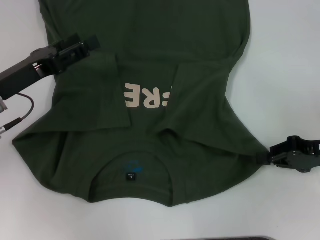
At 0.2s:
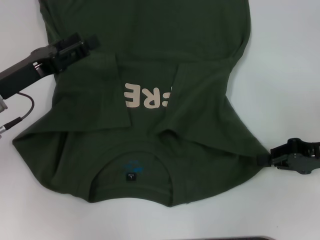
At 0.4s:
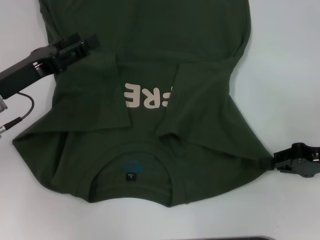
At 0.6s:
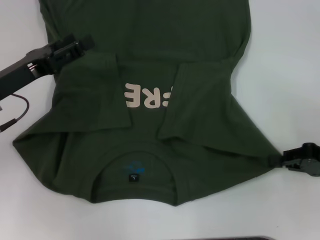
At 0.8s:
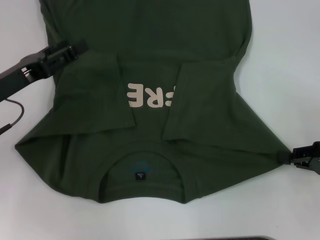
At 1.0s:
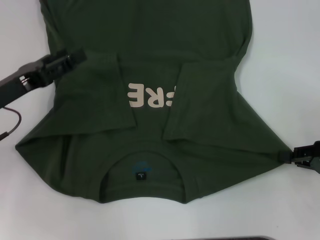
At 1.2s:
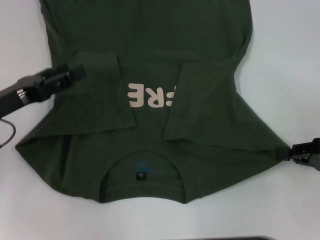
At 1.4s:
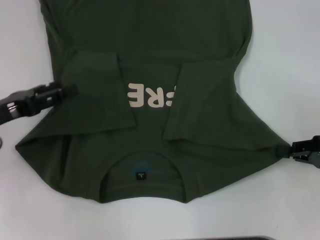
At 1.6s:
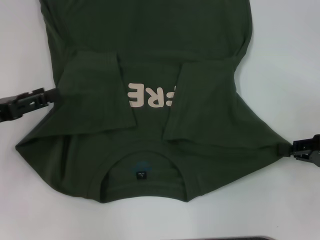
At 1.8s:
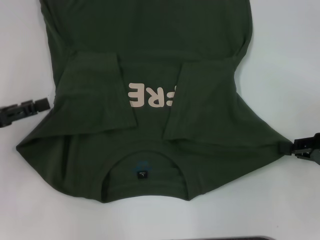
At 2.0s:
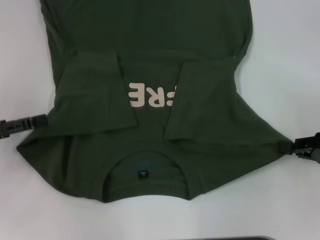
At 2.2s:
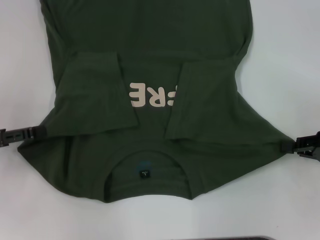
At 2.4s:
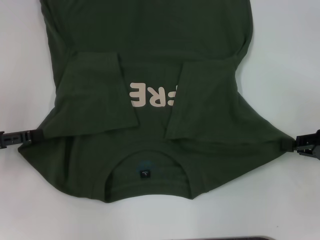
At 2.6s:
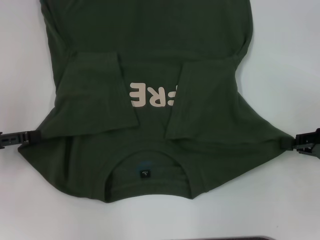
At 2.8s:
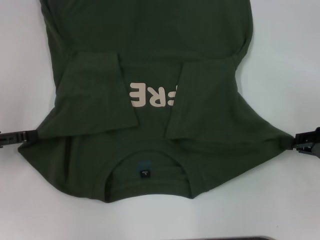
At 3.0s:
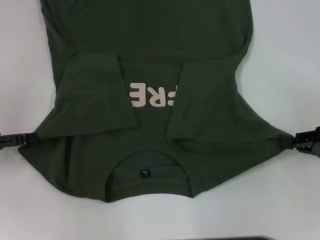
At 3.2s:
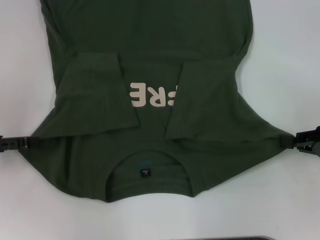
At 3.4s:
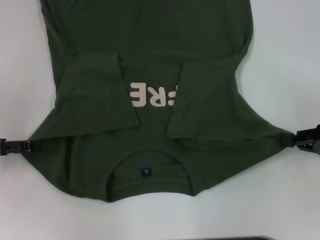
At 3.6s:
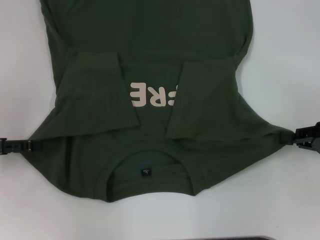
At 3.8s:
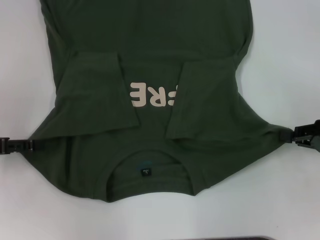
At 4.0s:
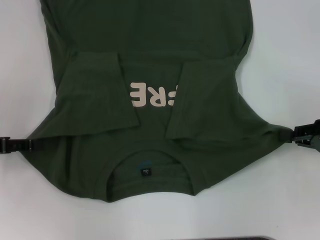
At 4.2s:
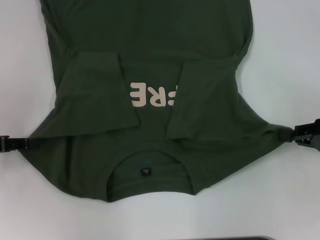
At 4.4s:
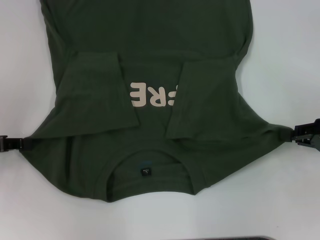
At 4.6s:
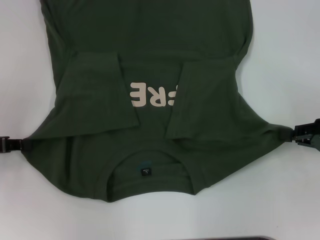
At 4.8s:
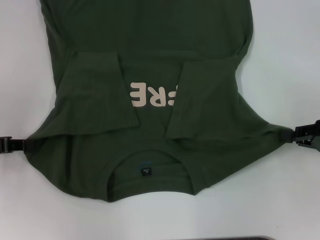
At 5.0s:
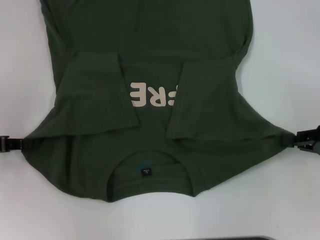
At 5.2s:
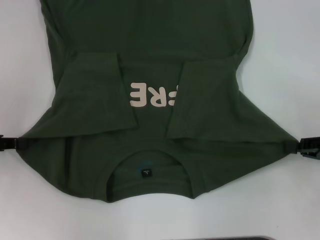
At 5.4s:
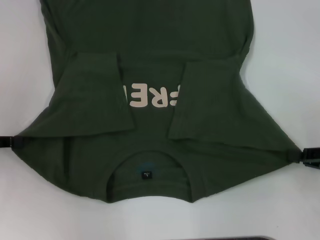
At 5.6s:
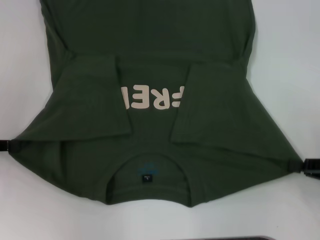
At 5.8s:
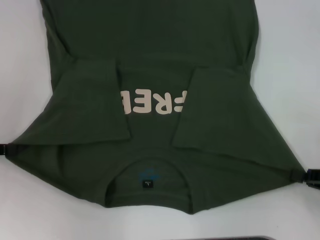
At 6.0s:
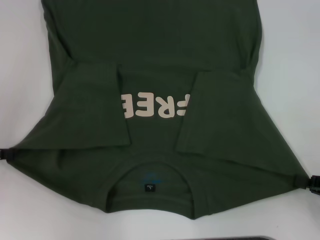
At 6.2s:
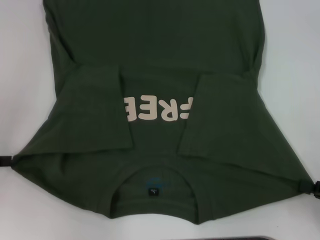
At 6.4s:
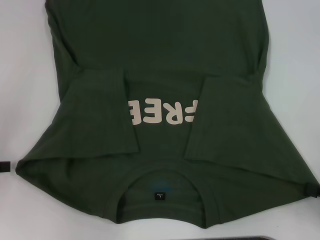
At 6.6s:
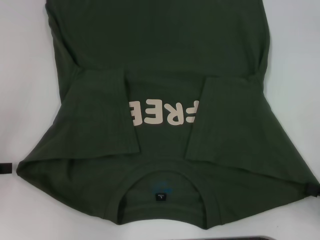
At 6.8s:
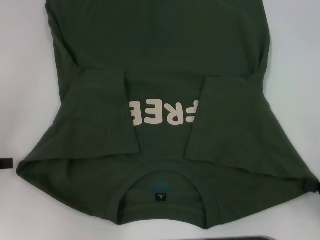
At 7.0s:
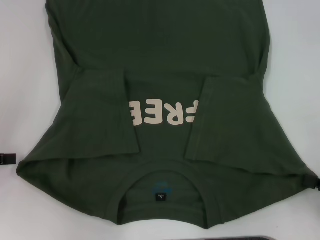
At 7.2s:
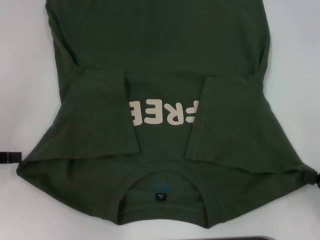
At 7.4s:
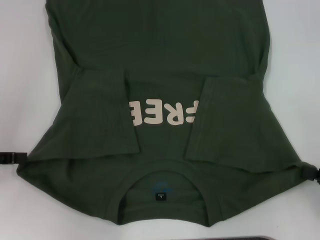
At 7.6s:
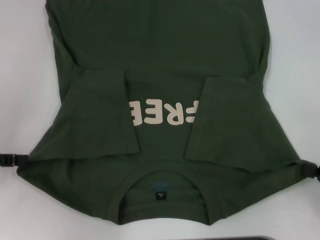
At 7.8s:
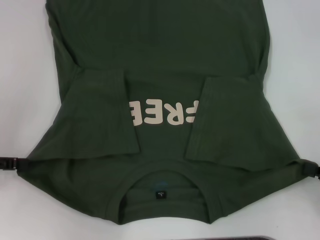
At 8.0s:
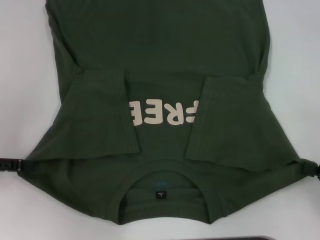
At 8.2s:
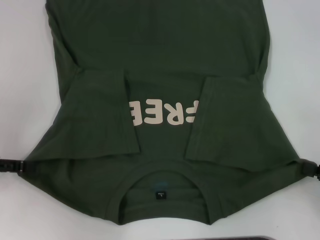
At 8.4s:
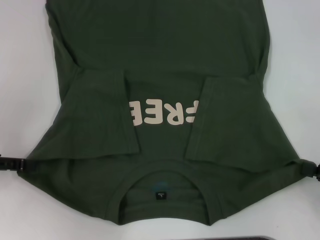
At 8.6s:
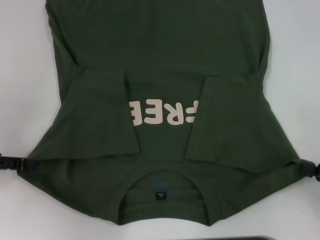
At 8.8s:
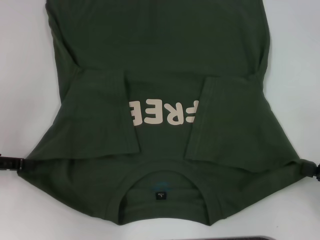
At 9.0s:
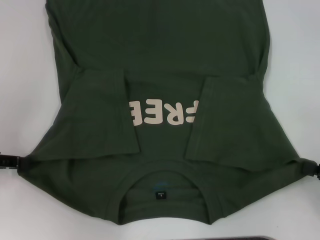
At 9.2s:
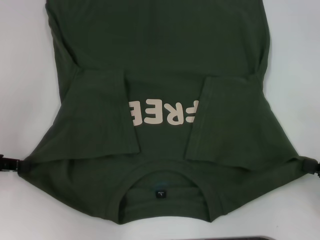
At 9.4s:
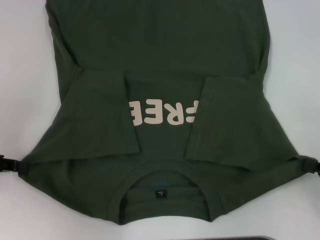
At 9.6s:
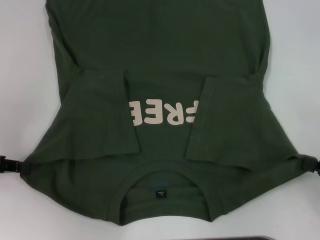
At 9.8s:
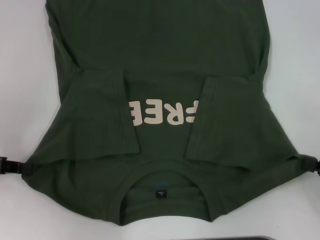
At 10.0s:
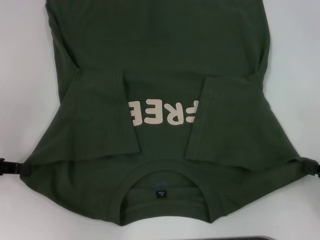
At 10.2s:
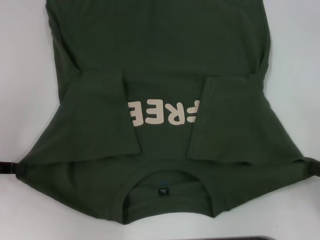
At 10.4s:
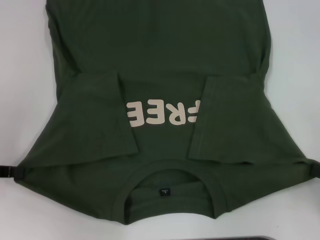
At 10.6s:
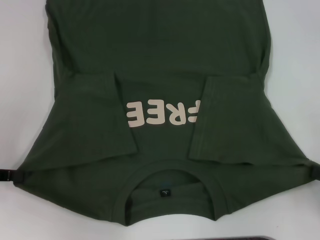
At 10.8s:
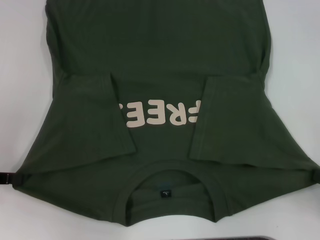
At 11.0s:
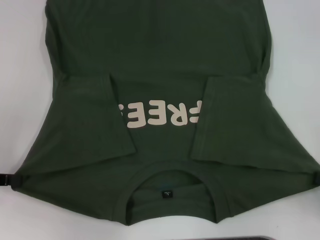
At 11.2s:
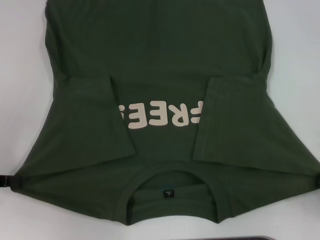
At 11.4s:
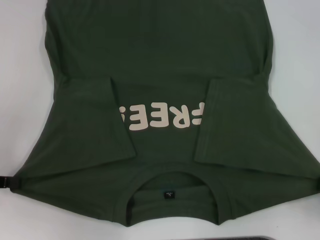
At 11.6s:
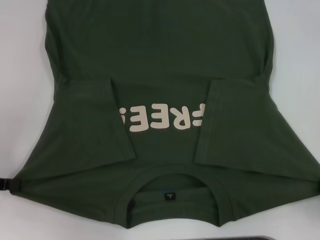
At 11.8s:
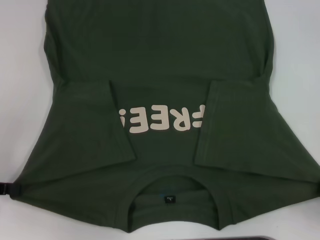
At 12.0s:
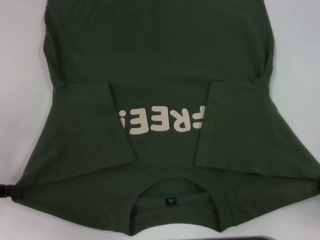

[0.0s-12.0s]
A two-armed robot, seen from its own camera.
Step, 0.4s to 9.8s: Grab the bottom left corner with your left hand.
0.0s to 1.6s: The left gripper shifts about 5 cm to the left.
3.0s to 4.4s: The left gripper closes.
4.4s to 6.0s: The right gripper shifts some 10 cm backward.
6.0s to 7.6s: The left gripper opens.
7.6s to 9.0s: Neither gripper changes place.
9.0s to 10.4s: The left gripper closes up.
10.4s to 12.0s: There are only small adjustments of the grippers.

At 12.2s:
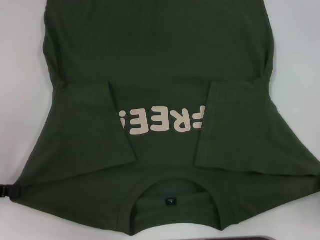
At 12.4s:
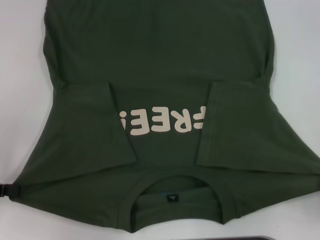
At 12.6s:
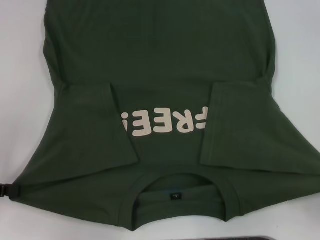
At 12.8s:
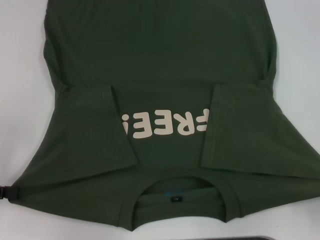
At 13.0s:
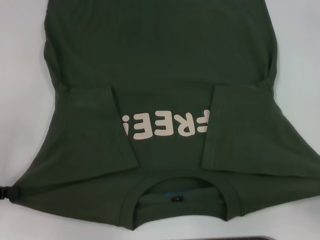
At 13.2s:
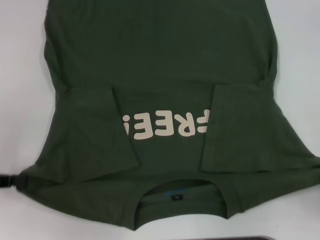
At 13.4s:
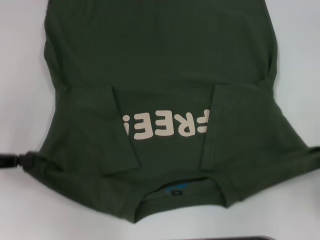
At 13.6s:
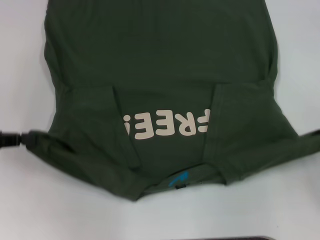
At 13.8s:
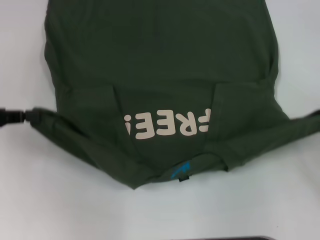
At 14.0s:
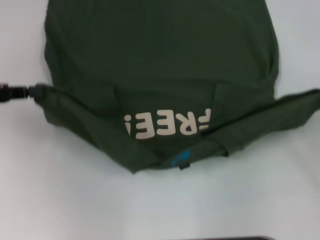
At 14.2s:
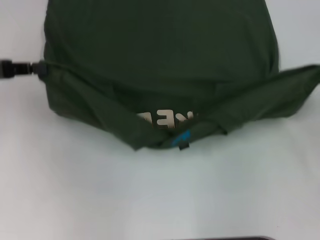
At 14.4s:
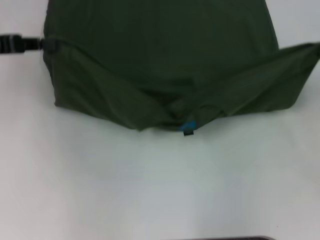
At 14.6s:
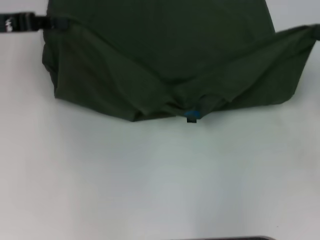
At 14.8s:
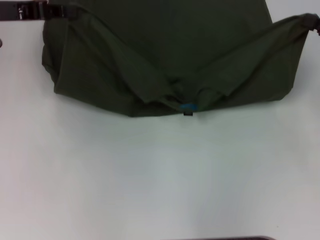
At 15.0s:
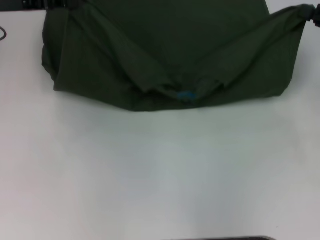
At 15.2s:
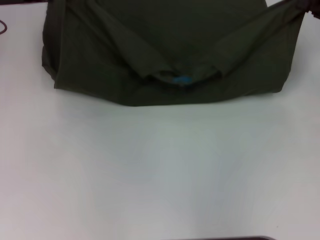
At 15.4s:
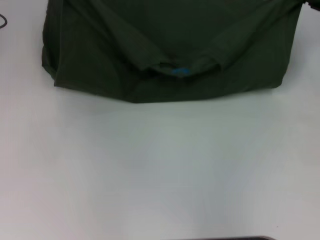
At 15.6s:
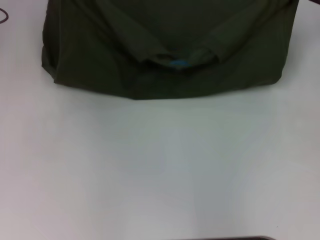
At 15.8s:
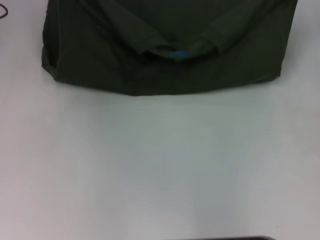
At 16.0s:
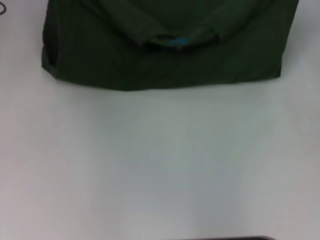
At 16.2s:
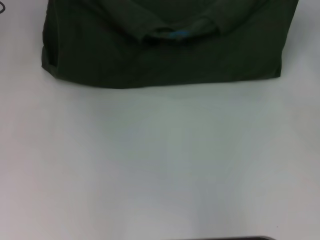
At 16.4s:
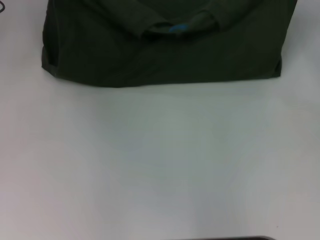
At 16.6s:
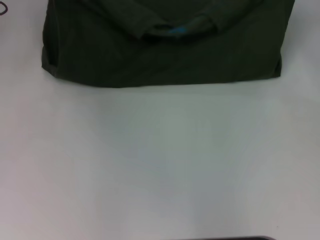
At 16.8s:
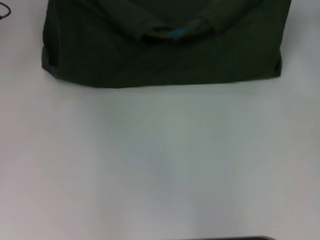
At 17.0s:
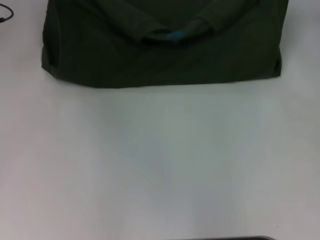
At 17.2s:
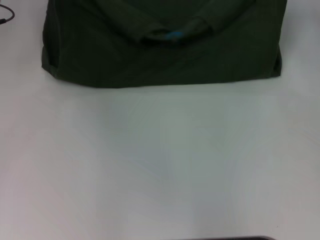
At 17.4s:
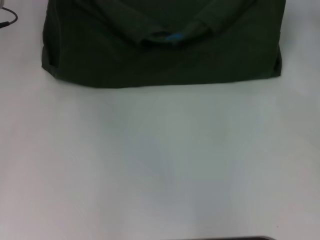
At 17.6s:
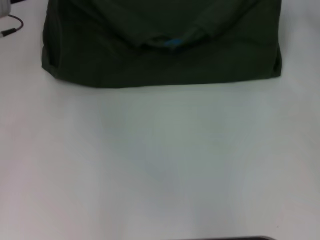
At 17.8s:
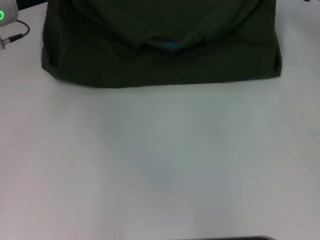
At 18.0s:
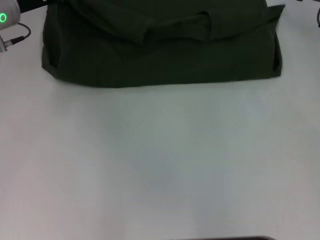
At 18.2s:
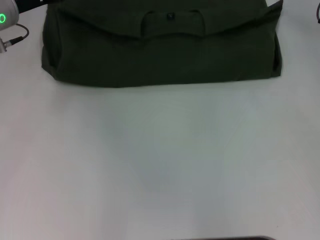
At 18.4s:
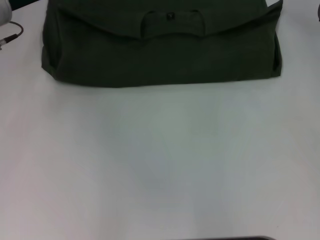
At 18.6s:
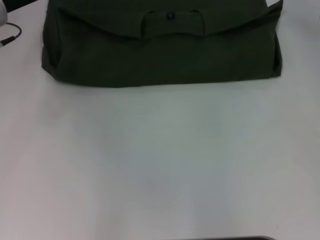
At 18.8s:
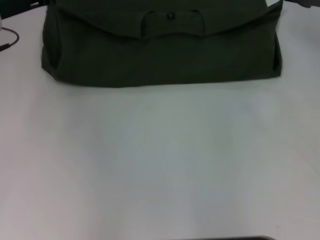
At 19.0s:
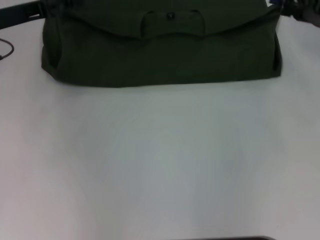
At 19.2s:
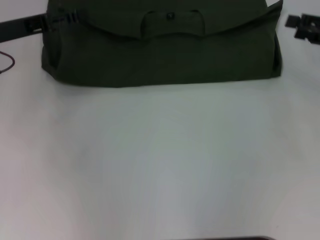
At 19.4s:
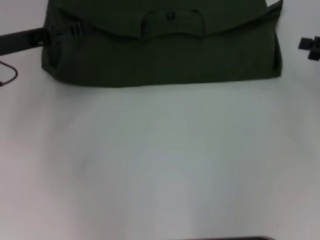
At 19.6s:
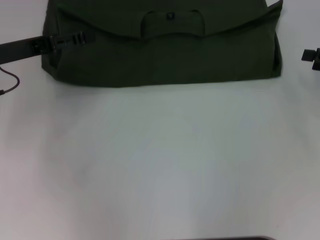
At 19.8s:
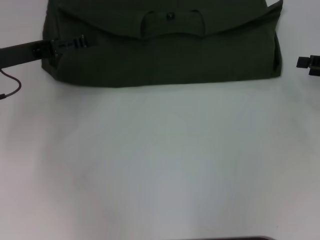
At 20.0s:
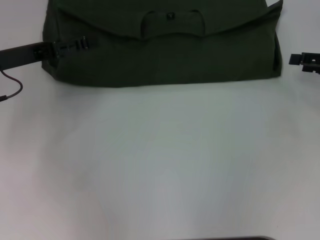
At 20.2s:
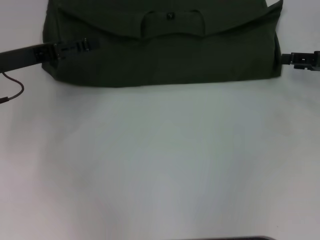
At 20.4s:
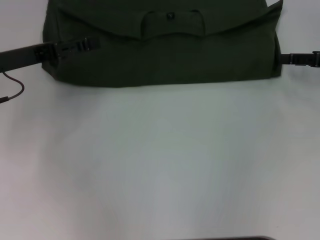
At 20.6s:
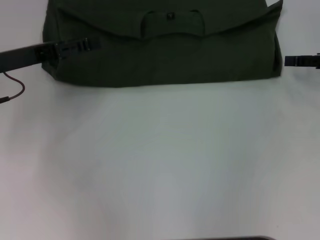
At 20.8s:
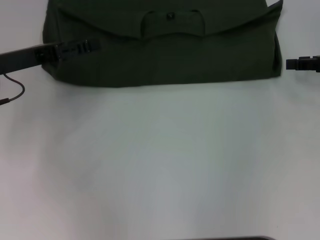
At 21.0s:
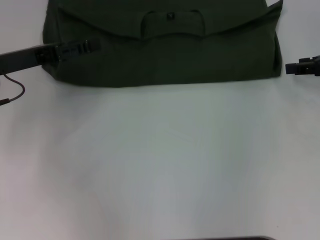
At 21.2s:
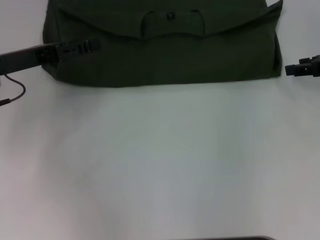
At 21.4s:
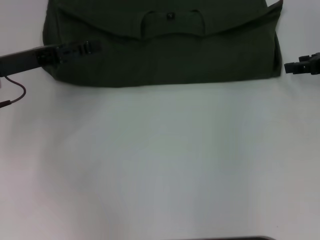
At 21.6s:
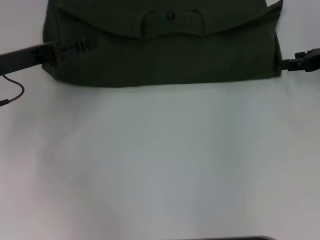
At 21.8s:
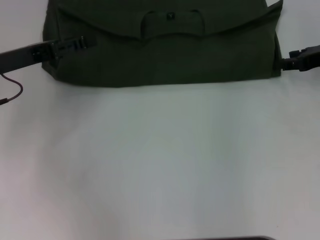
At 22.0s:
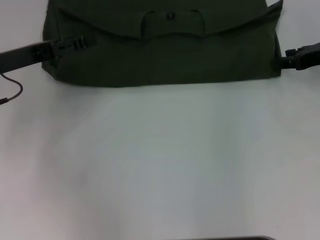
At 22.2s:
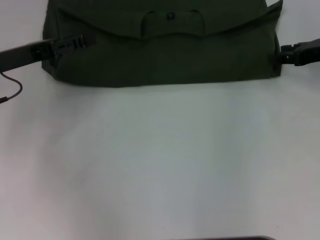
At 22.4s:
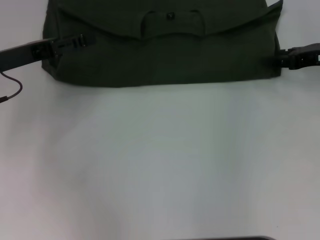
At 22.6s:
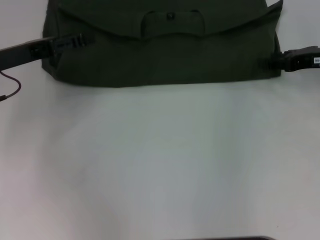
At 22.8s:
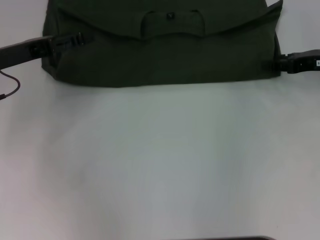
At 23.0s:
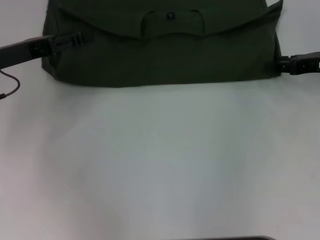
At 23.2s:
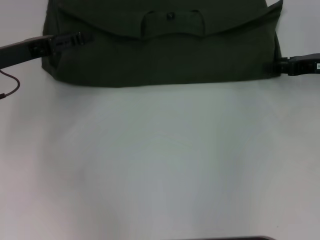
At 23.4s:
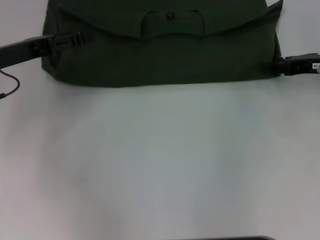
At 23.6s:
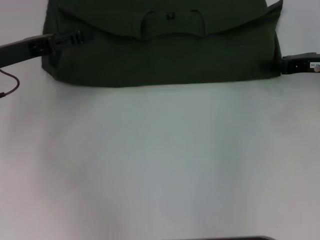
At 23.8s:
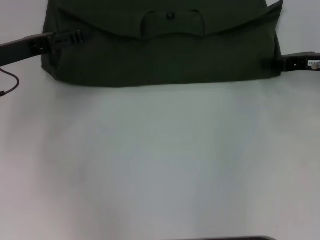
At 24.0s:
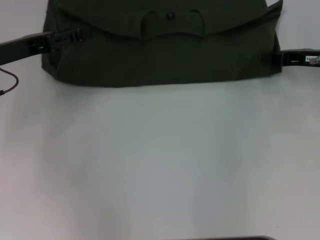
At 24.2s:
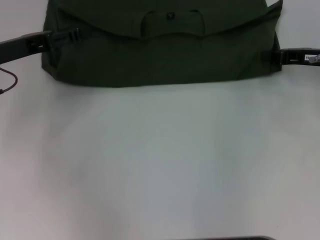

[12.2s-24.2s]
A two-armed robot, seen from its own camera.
Step, 12.2s to 18.0s: Fold the clothes with your left hand.
Step, 12.2s to 18.0s: Fold the clothes with your right hand.
12.2s to 13.8s: The grippers both shift forward by some 5 cm.
13.8s to 15.2s: The left gripper heads forward and to the right, covering about 15 cm, while the right gripper moves forward, roughly 15 cm.
15.2s to 16.6s: The right gripper changes place by about 5 cm.
16.6s to 18.2s: The left gripper ends up some 5 cm from where it was, and opens its fingers. Meanwhile the right gripper heads to the left, covering some 5 cm, and opens up.
18.2s to 19.8s: The right gripper travels backward and to the right by about 15 cm, and opens. The left gripper moves backward, roughly 10 cm, and opens its fingers.
21.2s to 22.6s: The grippers stay close to where they were, moving slightly.
22.6s to 24.2s: The right gripper closes its fingers.
